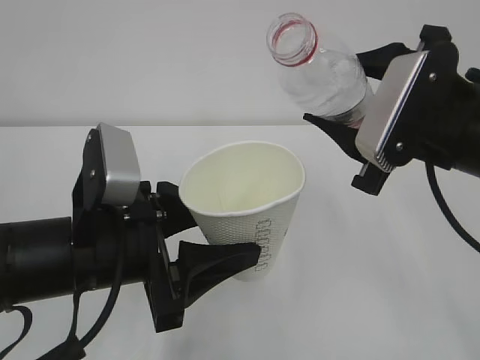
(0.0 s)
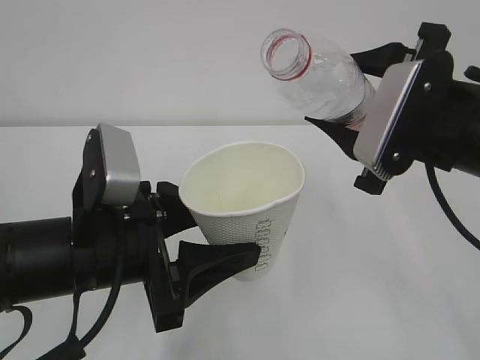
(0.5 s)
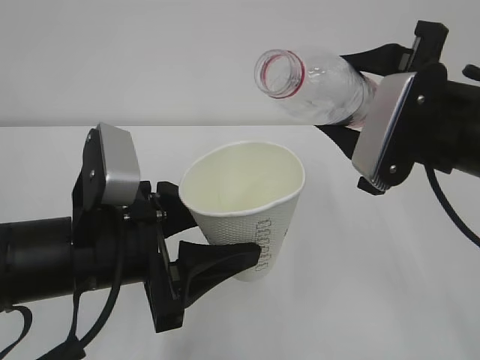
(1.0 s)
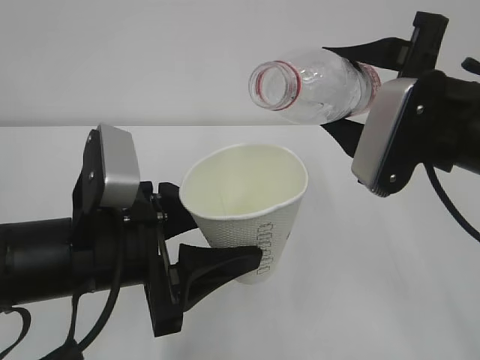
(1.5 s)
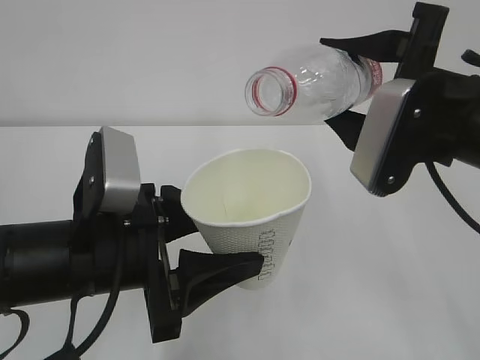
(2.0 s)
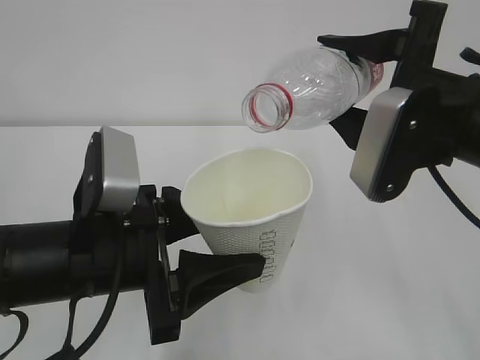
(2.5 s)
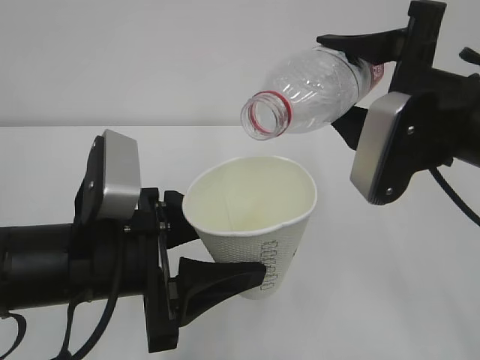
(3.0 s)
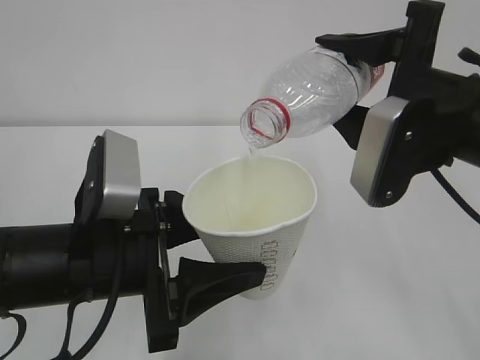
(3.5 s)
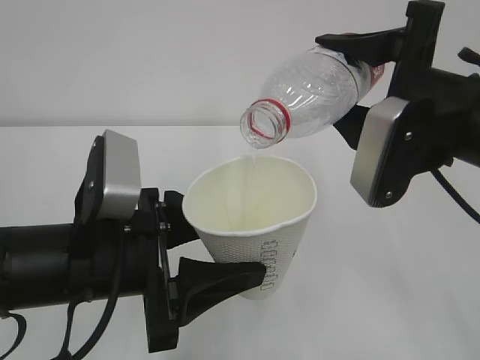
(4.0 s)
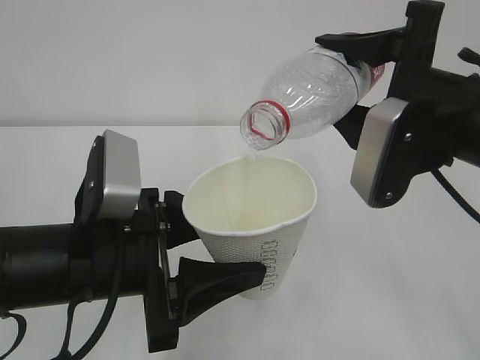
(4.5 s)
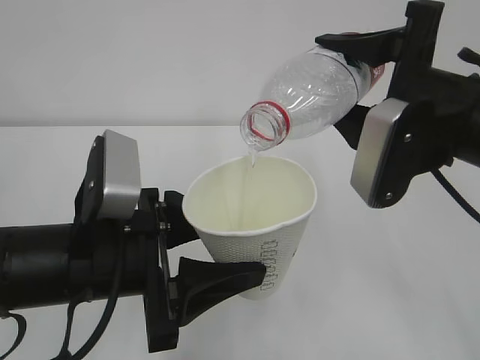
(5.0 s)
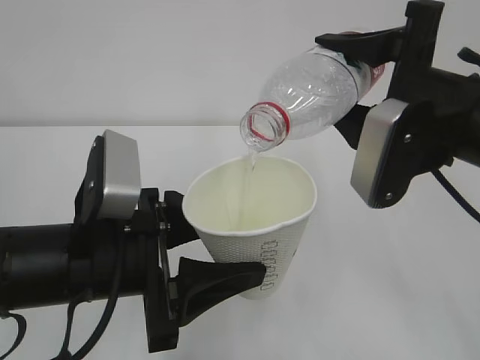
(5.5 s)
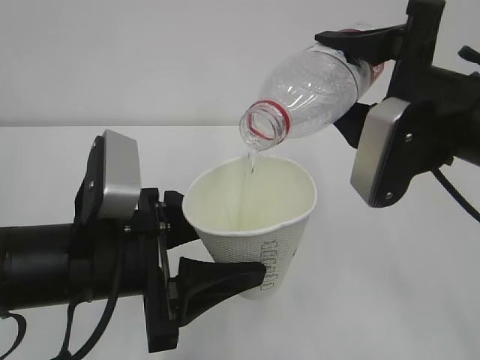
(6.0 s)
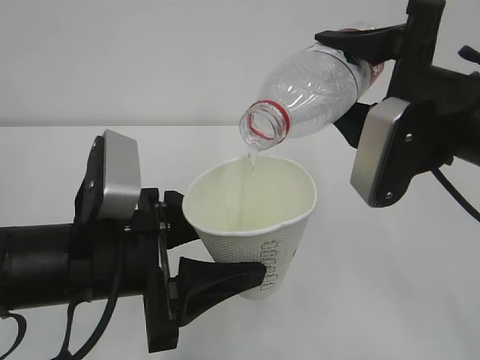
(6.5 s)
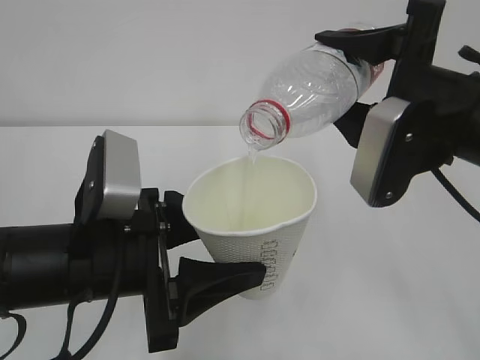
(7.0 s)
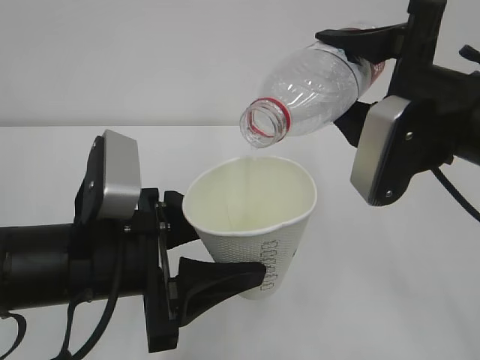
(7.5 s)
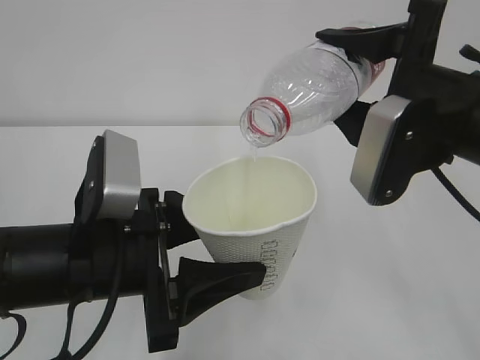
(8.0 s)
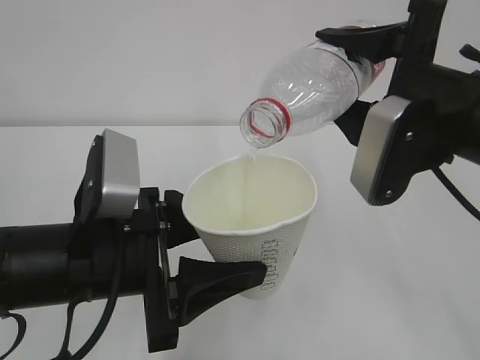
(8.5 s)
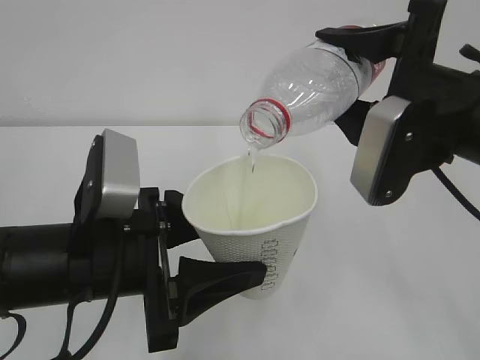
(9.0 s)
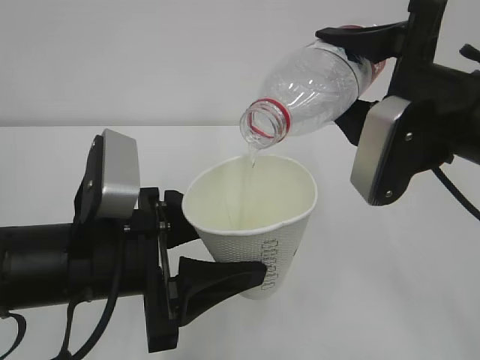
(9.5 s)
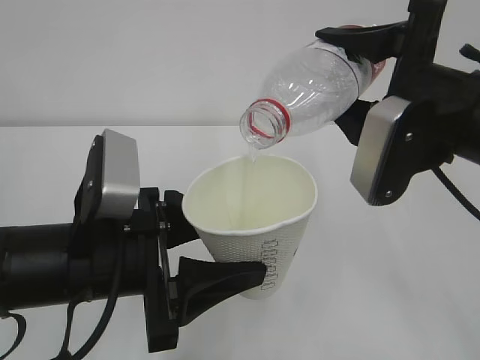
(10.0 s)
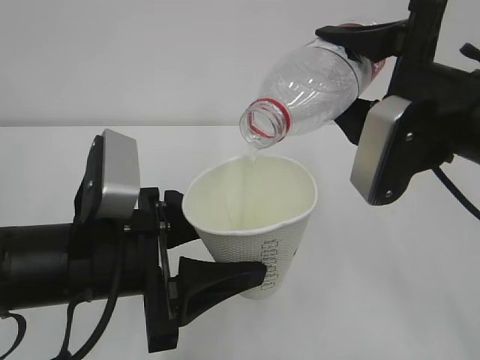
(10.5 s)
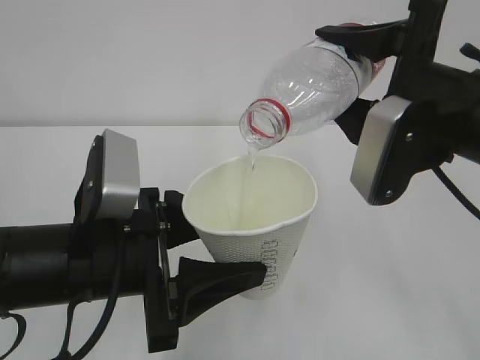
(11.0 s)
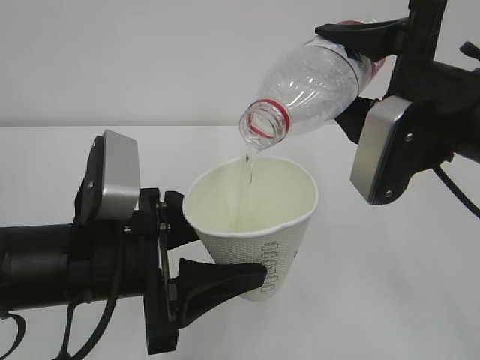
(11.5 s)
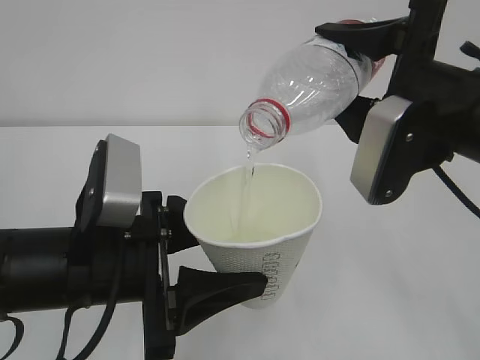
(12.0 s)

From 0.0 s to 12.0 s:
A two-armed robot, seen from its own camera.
From 2.0 s to 4.0 s: The grippers stay close to where they were, moving slightly.
From 4.0 s to 12.0 s: The two grippers keep their place.

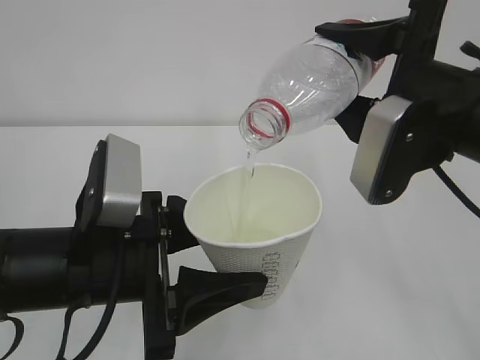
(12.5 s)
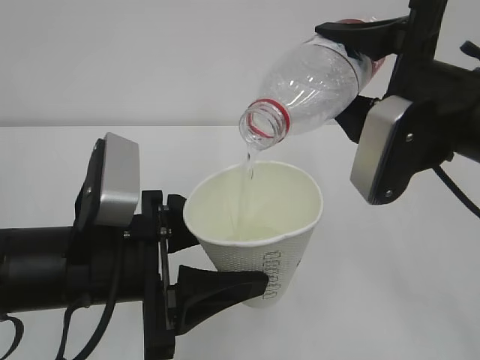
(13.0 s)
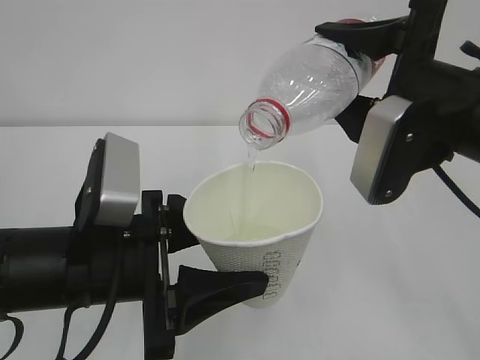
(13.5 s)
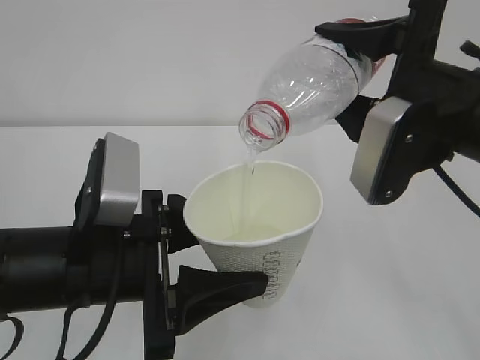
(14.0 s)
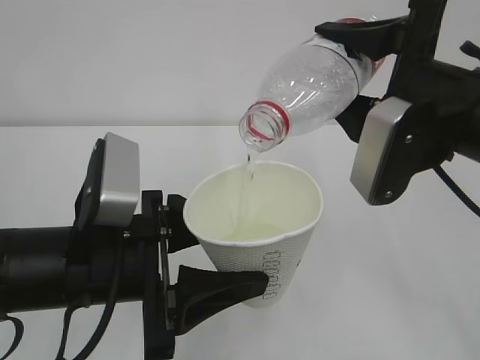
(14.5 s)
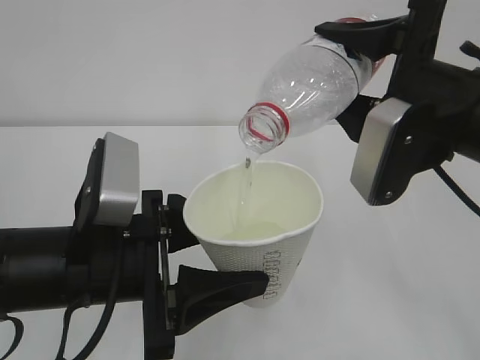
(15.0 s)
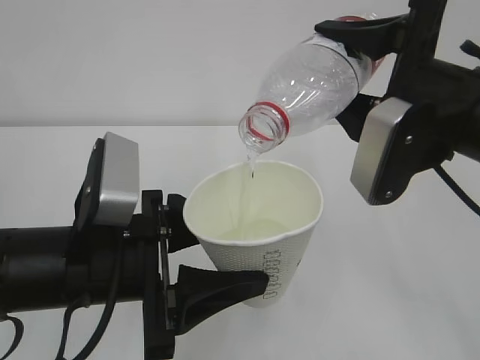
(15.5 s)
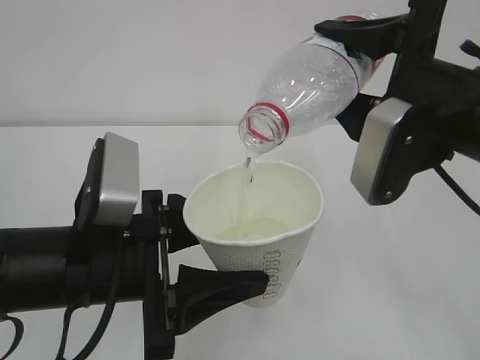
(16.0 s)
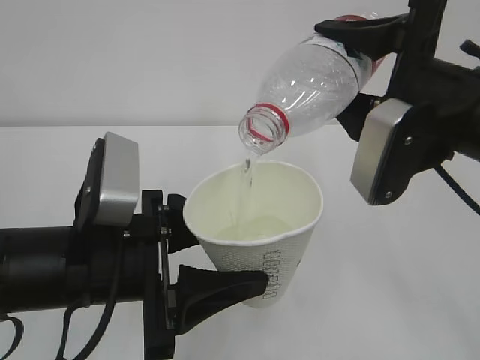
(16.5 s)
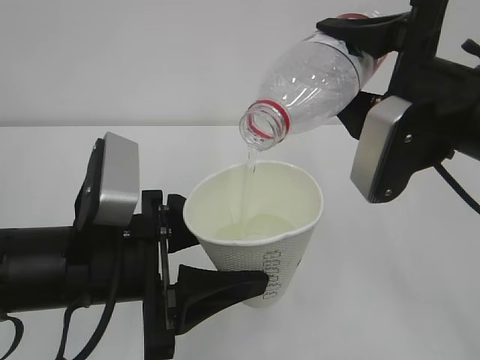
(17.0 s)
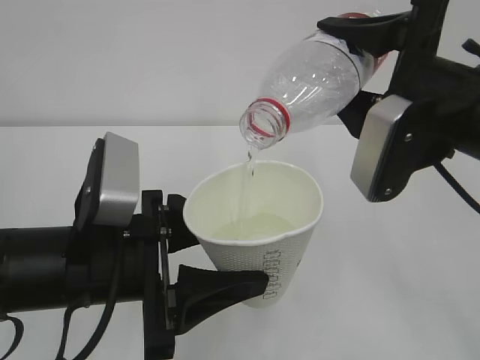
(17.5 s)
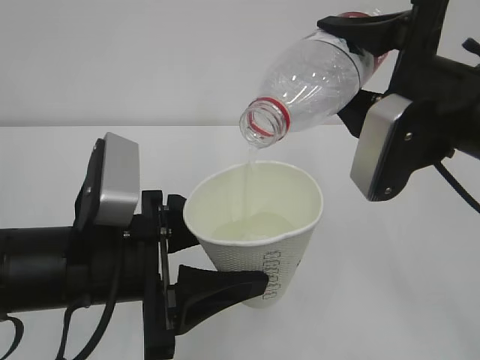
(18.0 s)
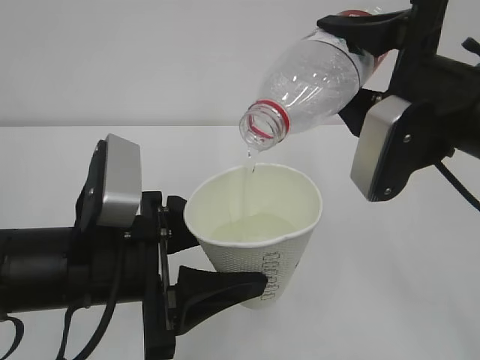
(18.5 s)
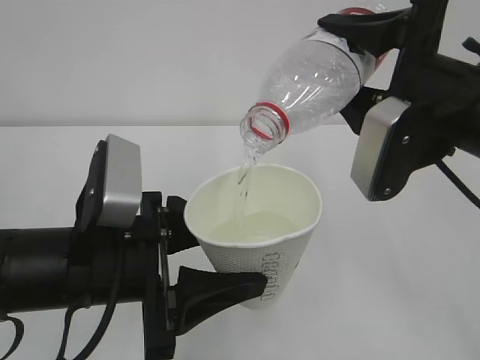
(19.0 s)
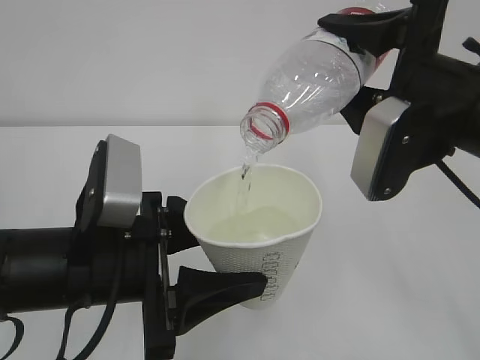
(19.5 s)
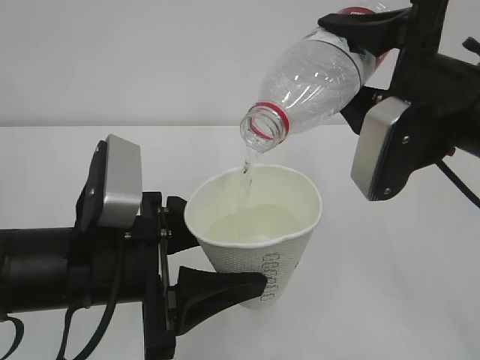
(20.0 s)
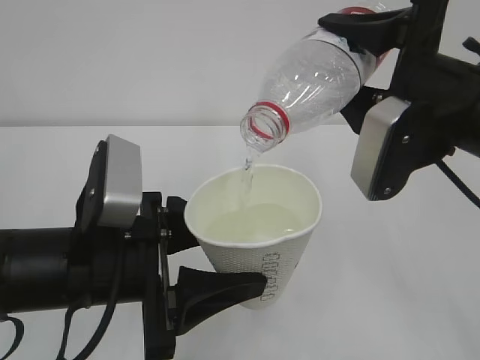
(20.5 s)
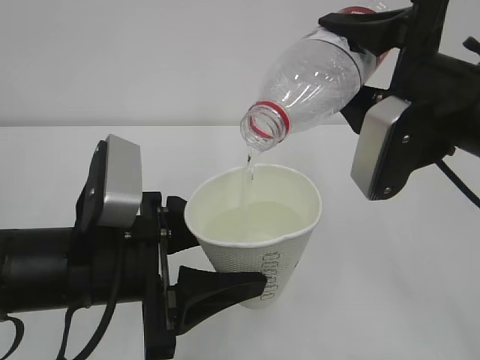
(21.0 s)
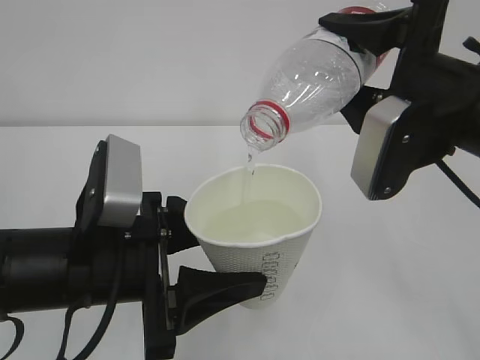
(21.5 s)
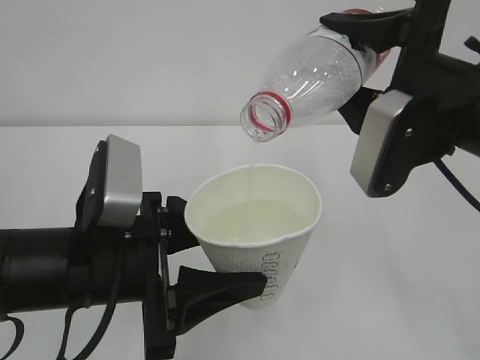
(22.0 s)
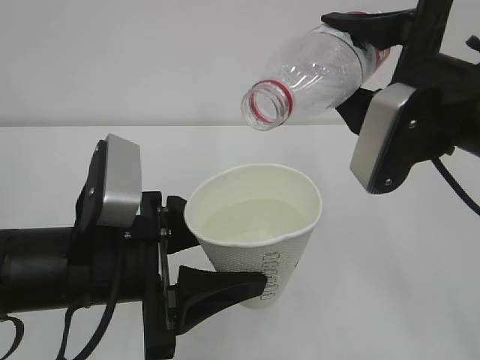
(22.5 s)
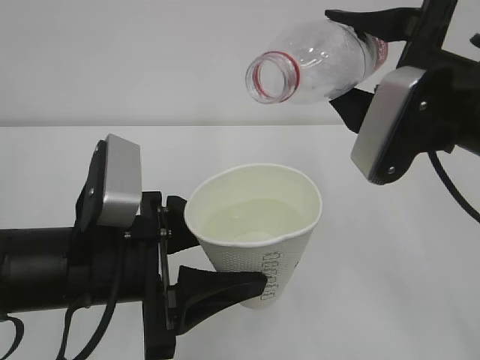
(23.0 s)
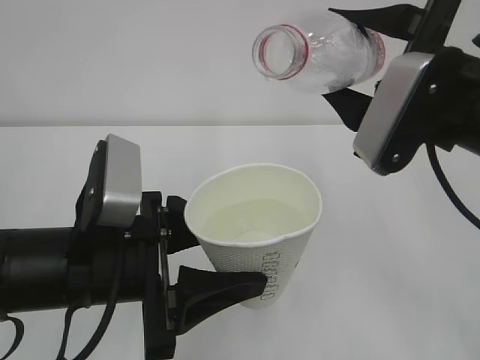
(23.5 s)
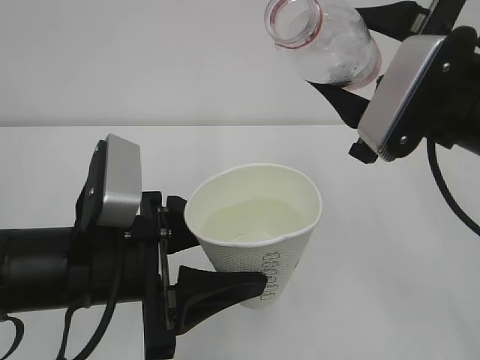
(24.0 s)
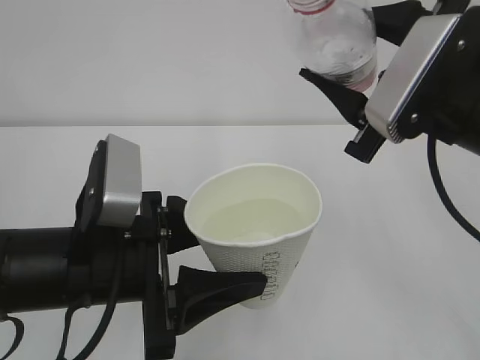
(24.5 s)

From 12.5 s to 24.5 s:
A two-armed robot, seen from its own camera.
From 12.5 s to 18.5 s: Both grippers stay about where they are.
From 18.5 s to 20.5 s: Both grippers stay put.
From 20.5 s to 22.5 s: The grippers move only a little.

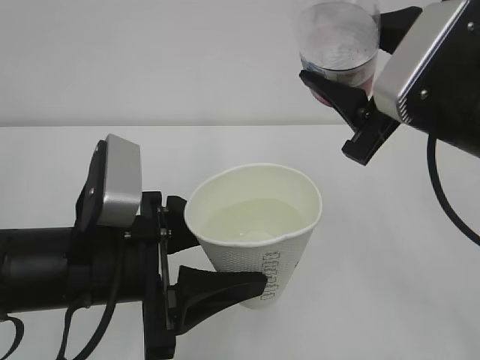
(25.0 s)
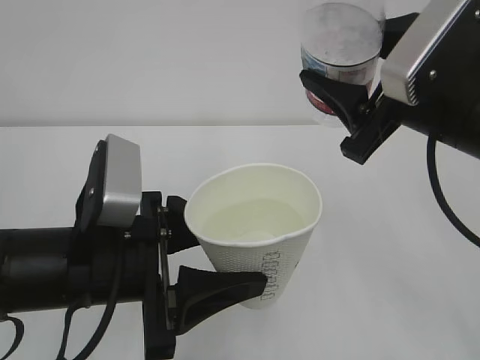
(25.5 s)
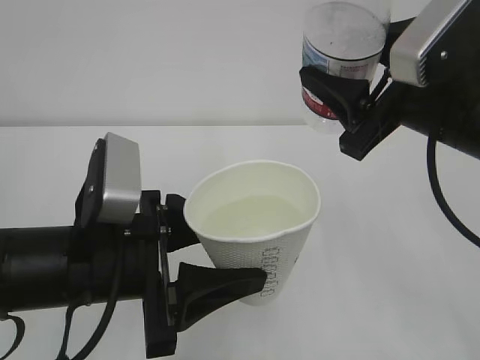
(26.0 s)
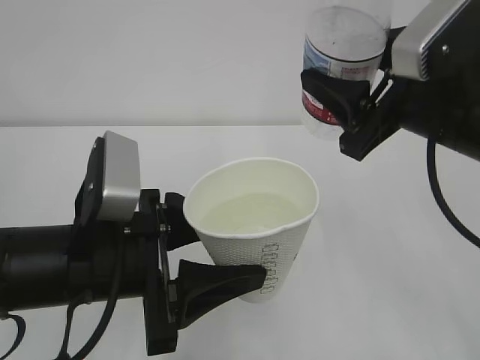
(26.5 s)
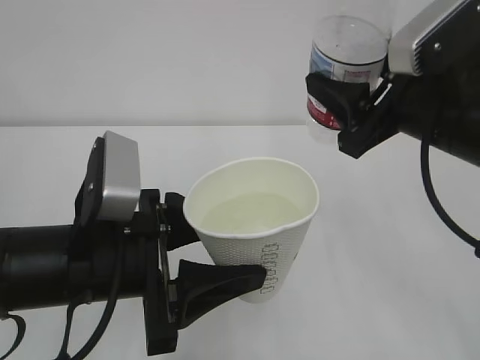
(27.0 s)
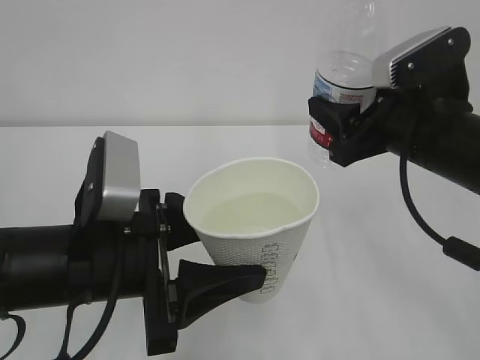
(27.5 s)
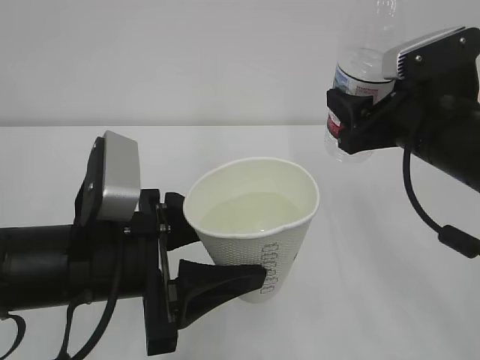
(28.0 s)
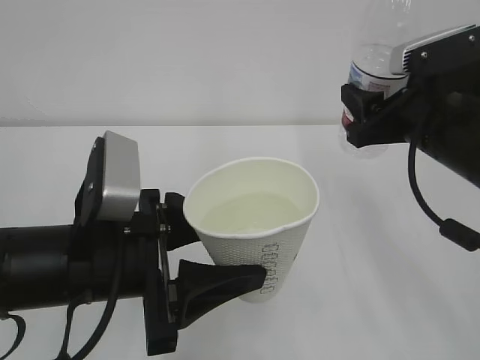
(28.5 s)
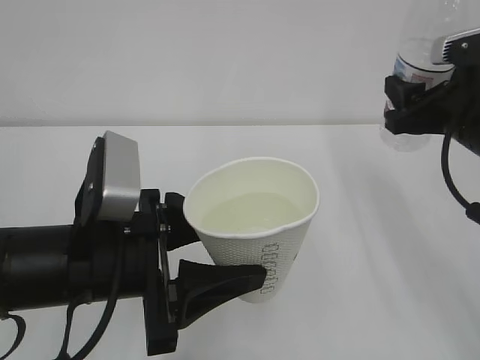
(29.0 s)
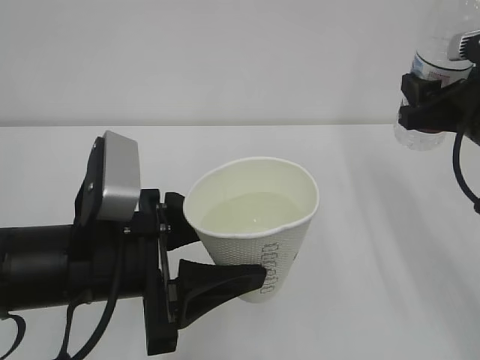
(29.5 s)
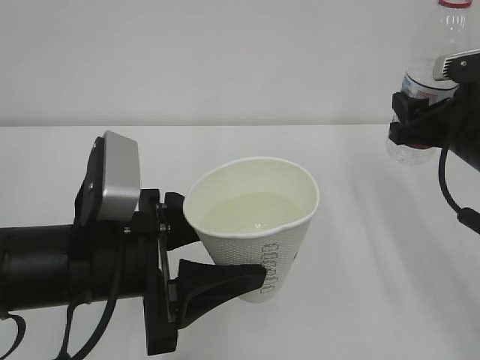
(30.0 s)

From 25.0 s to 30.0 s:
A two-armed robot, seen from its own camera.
From 25.0 s to 27.5 s: The right gripper moves approximately 5 cm.
From 27.5 s to 30.0 s: The right gripper heads to the right, covering roughly 5 cm.
